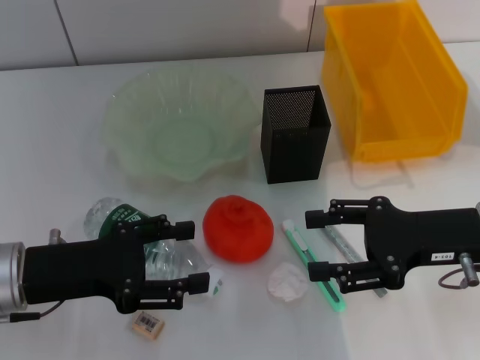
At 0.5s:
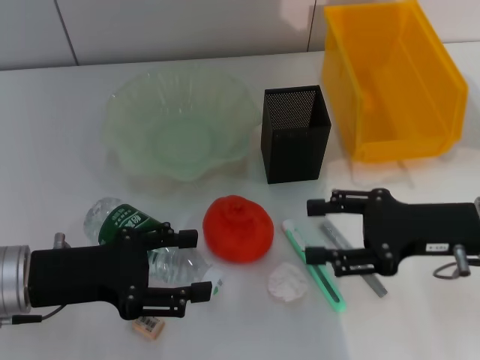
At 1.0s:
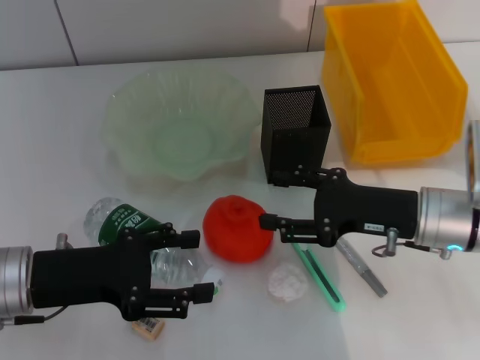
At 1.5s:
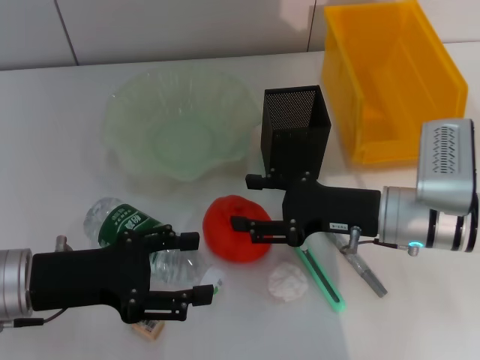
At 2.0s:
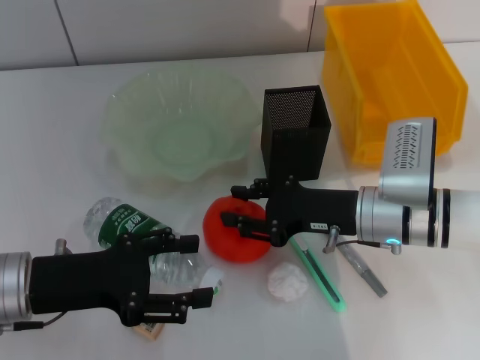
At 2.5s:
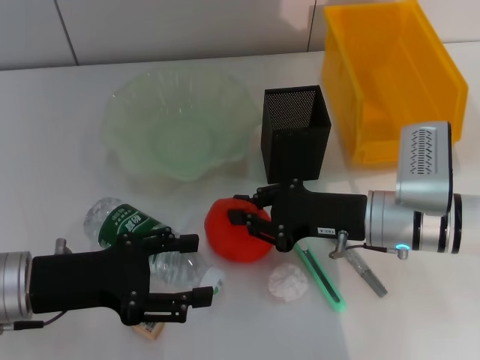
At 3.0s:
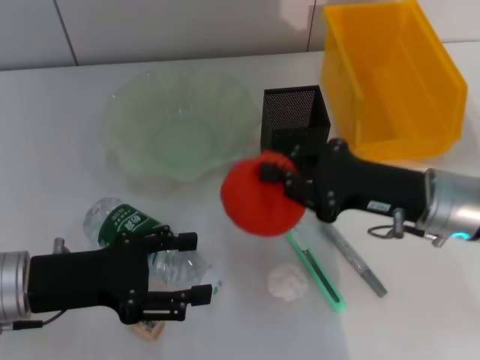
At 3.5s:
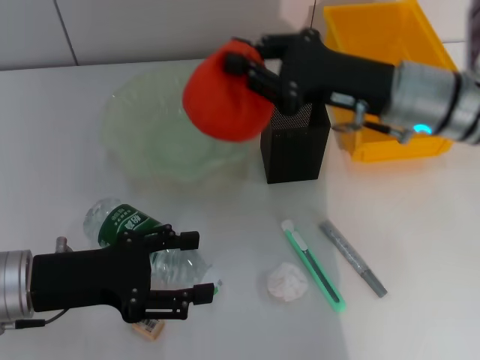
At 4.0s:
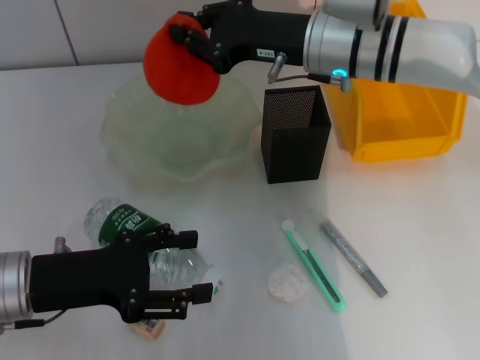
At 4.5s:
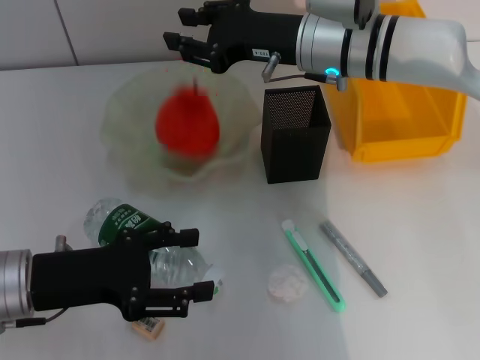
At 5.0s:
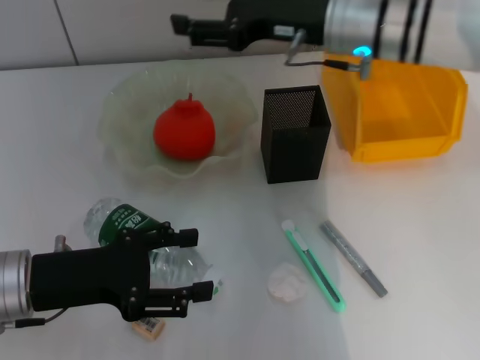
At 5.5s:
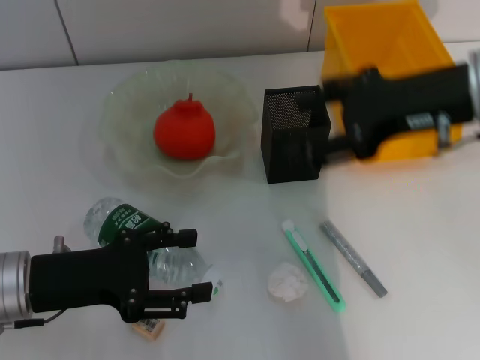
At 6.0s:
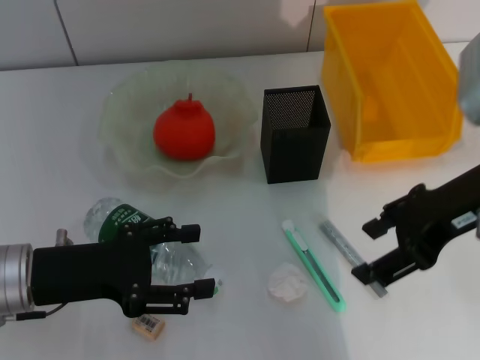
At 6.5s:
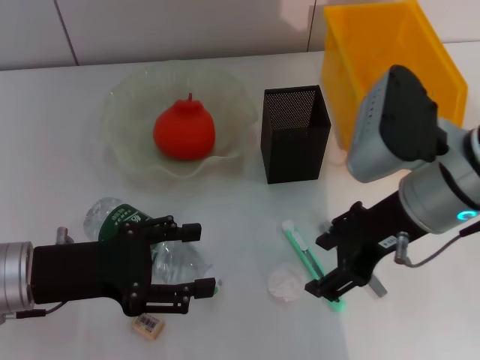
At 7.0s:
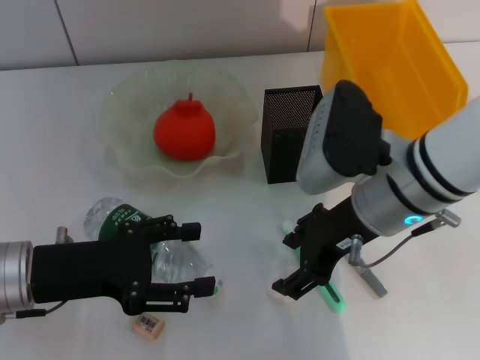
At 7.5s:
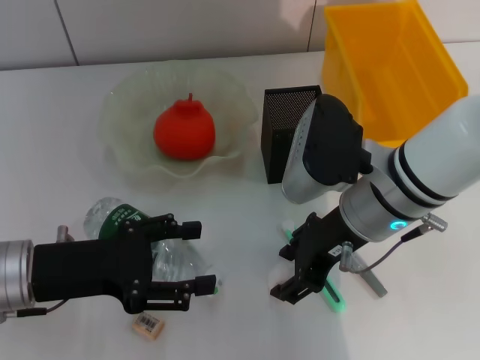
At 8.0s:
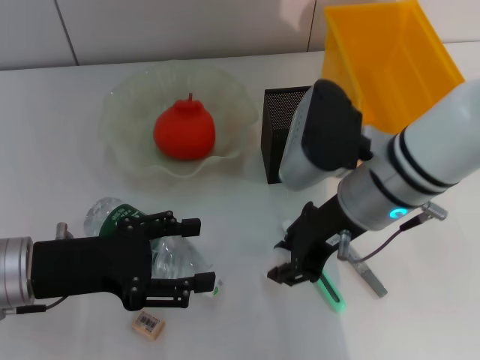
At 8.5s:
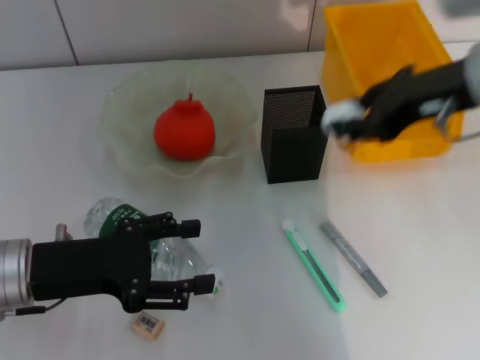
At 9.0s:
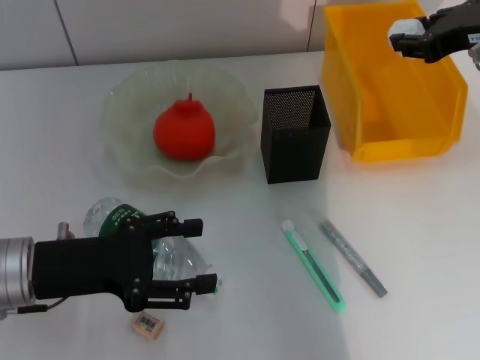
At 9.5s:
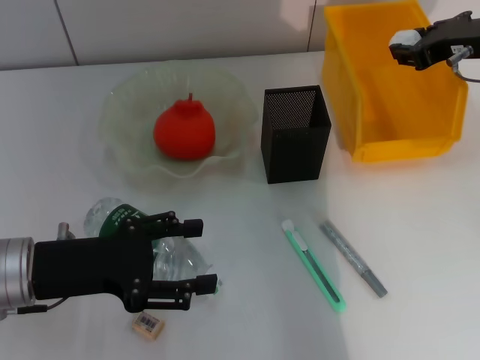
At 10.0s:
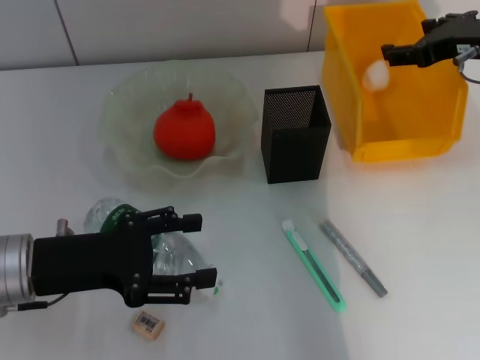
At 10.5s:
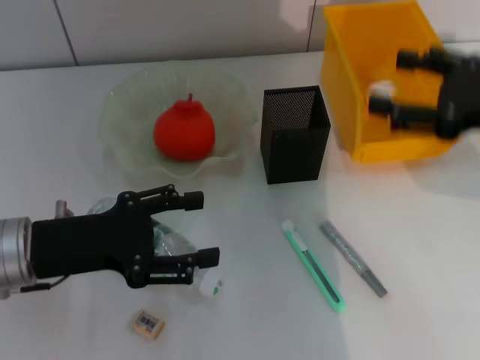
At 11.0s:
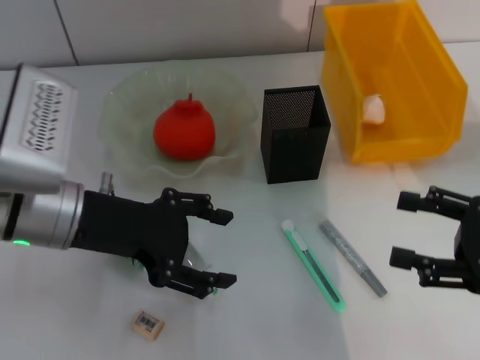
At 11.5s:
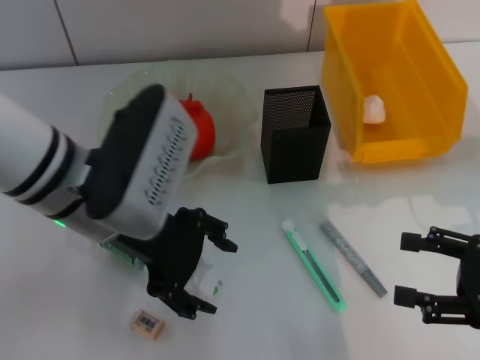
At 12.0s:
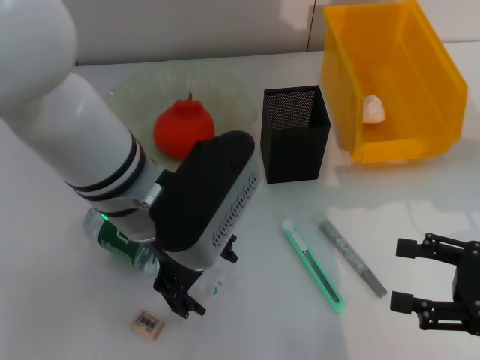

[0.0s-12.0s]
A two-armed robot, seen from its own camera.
Step, 0.0s to 2.0s: Grab the orange with the right hand.
Step, 2.5s to 4.5s: Place the orange into the fruit bowl with the right hand.
Step, 5.0s to 7.5s: Grab the paper ball with the right hand.
Step, 8.0s to 9.5s: Place the paper ball into the trash can with the right hand.
0.0s to 2.0s: The right gripper goes roughly 10 cm to the left and downward.
2.0s to 4.0s: The right gripper travels upward and forward by about 15 cm, and closes.
4.0s to 6.0s: The right gripper travels backward and to the right by some 15 cm, and opens its fingers.
6.0s to 8.0s: The right gripper travels to the left and downward by roughly 10 cm, and closes up.
8.0s to 10.0s: The right gripper is displaced to the right and forward by roughly 20 cm.
10.0s to 12.0s: The right gripper is displaced backward and downward by approximately 25 cm, and opens; the left gripper moves to the right and upward, some 15 cm.

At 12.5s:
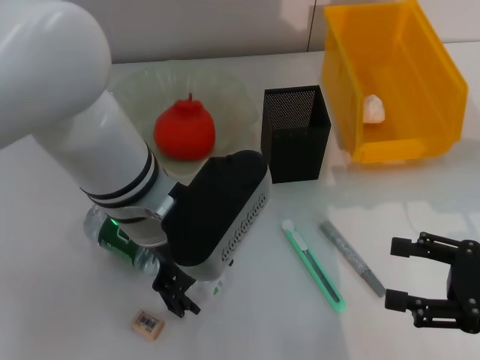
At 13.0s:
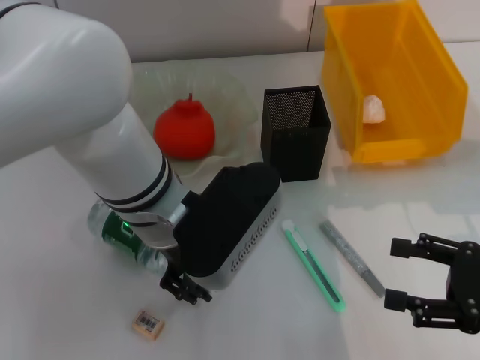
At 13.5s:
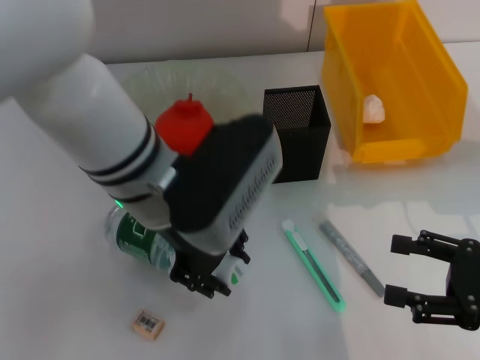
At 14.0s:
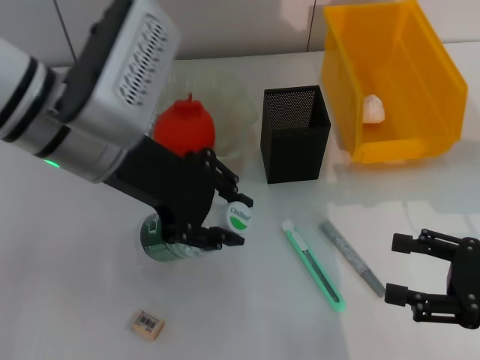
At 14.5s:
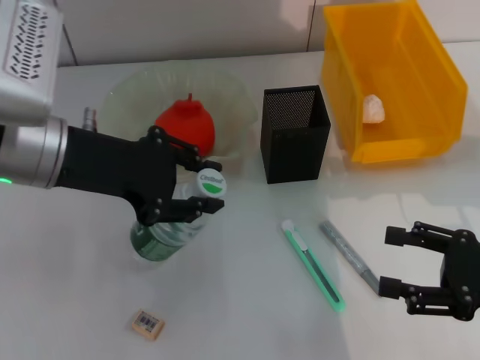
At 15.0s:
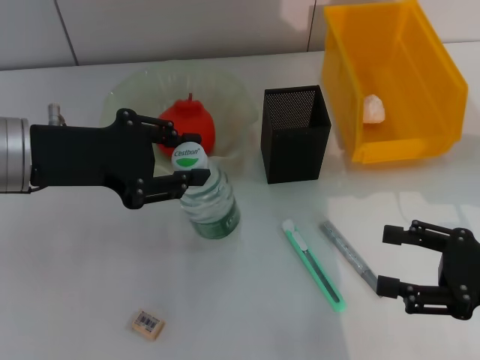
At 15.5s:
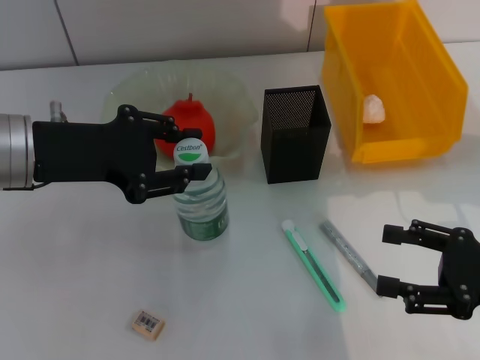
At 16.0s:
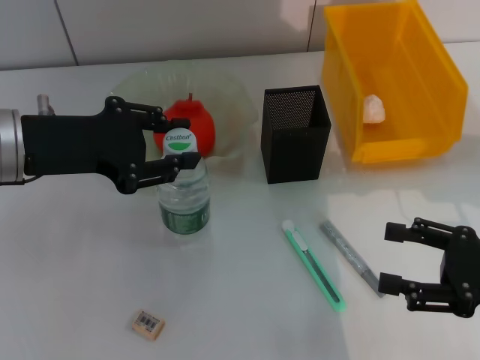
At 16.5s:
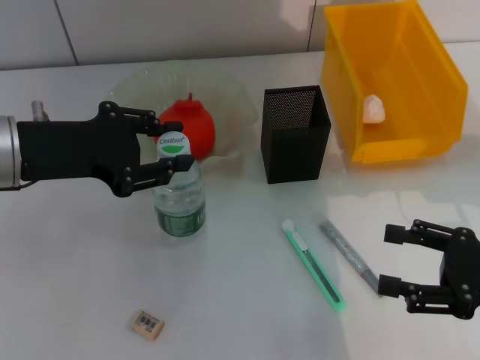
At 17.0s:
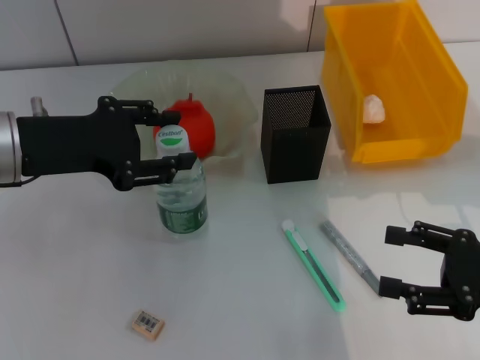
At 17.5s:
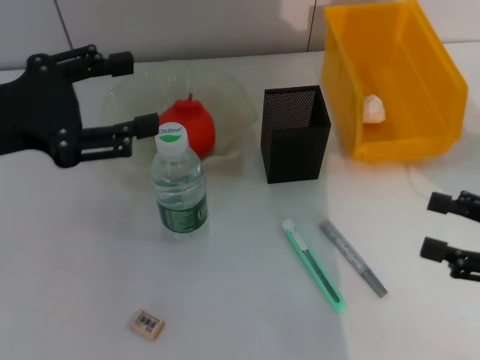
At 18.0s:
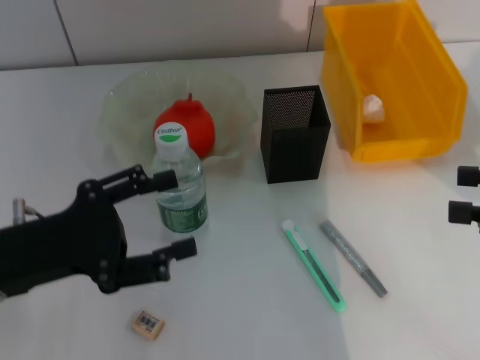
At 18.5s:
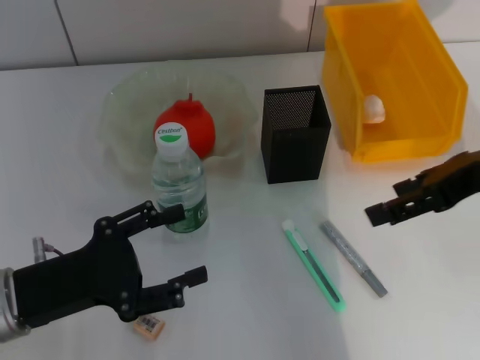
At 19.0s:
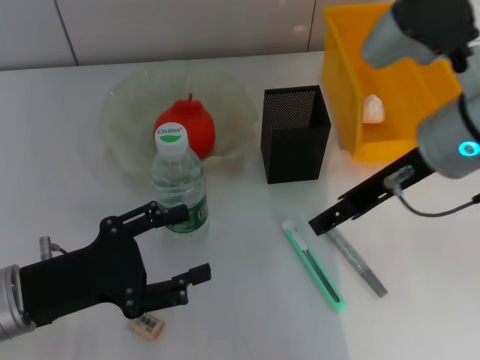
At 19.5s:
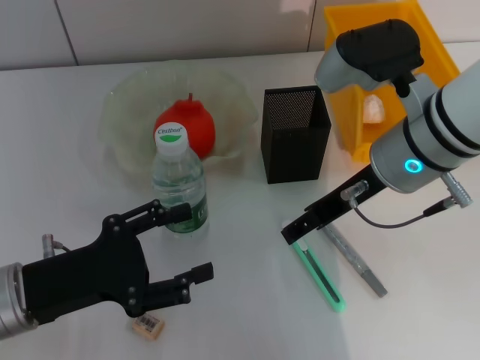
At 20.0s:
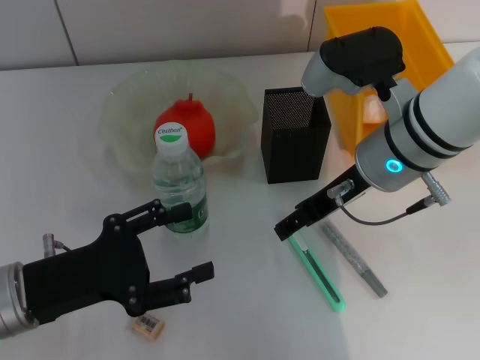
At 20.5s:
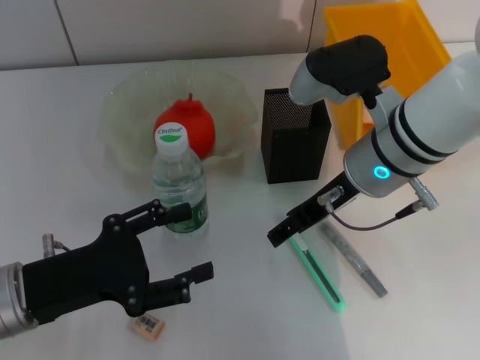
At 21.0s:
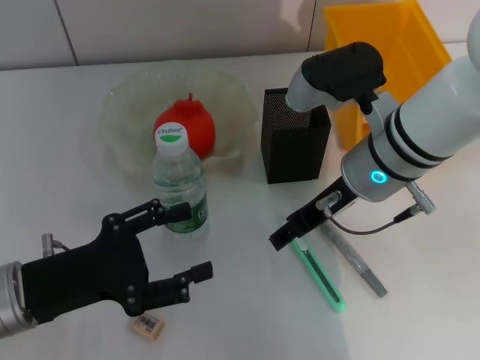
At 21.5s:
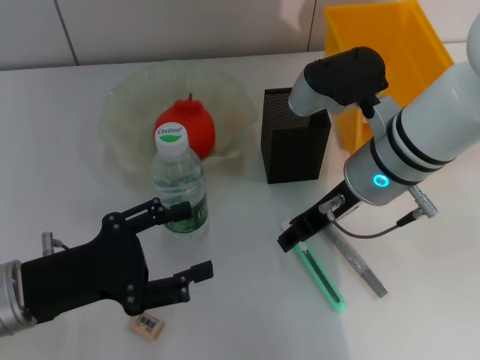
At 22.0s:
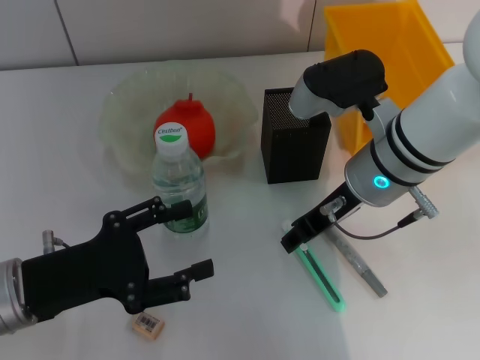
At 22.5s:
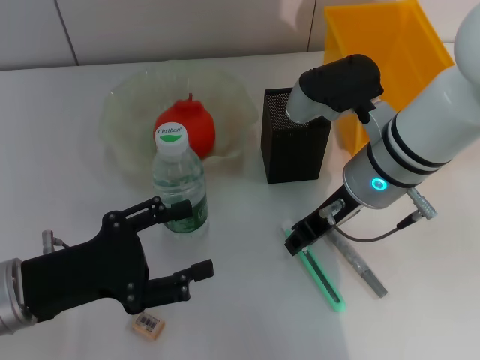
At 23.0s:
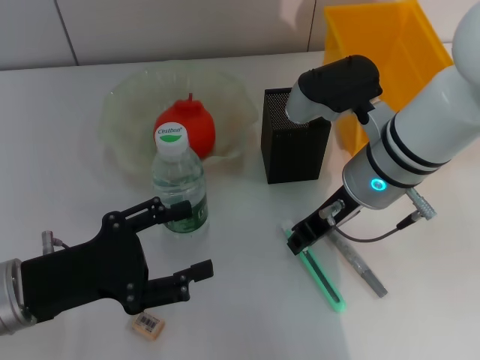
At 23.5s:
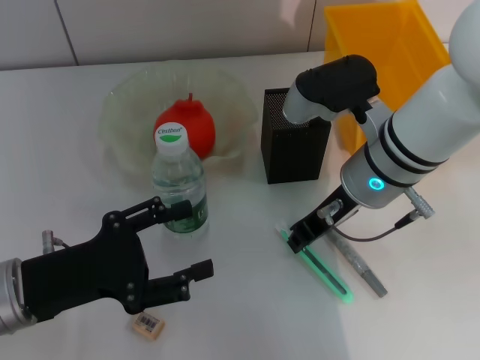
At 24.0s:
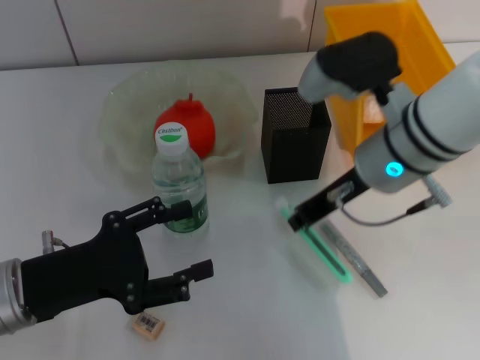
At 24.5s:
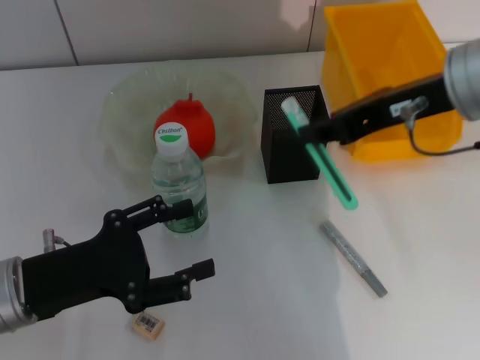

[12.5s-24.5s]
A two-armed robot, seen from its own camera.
Step, 13.5s to 17.0s: Place the water bottle on the table with the left hand.
Step, 17.5s to 23.5s: Grab the blue utility knife with the right hand.
12.5s to 14.5s: The left gripper shifts some 10 cm to the left, and closes.
14.5s to 16.5s: The grippers move only a little.
16.5s to 18.5s: The right gripper travels upward, forward and to the left by roughly 20 cm. The left gripper moves downward and backward, approximately 15 cm, and opens.
18.5s to 20.5s: The right gripper travels to the left and downward by approximately 15 cm.
20.5s to 22.5s: The right gripper closes up.
22.5s to 24.5s: The right gripper goes roughly 15 cm upward and to the right.

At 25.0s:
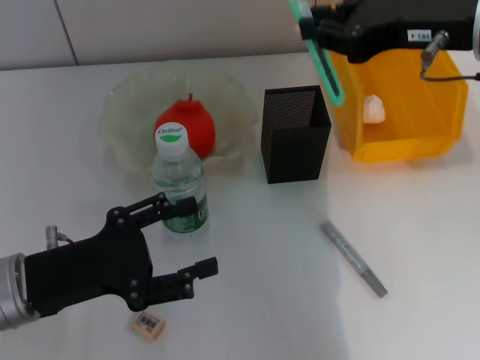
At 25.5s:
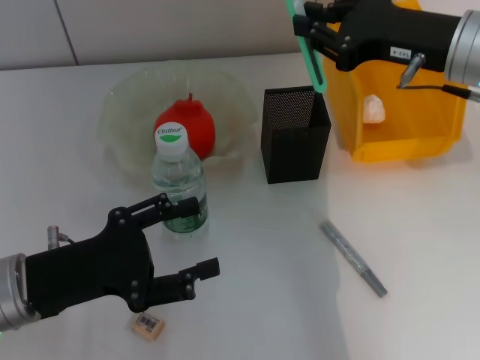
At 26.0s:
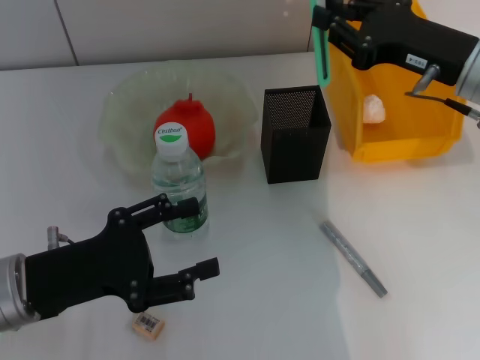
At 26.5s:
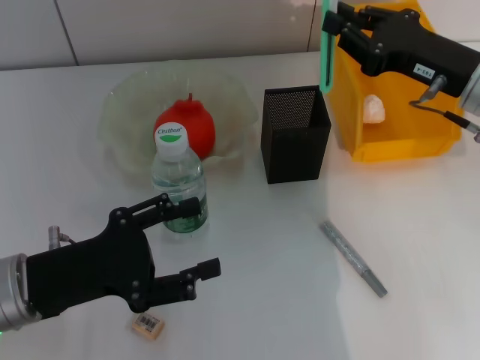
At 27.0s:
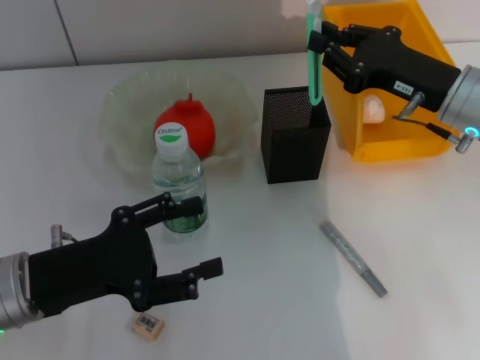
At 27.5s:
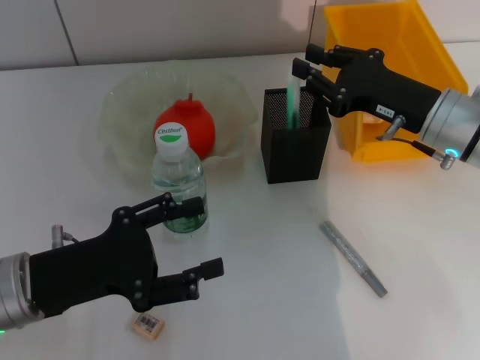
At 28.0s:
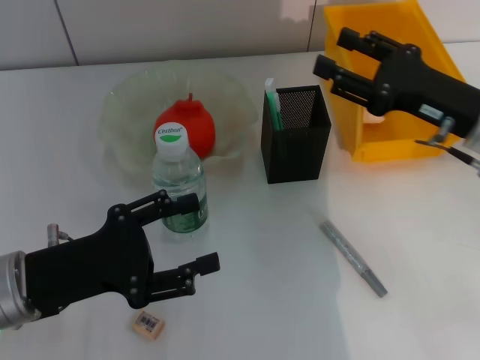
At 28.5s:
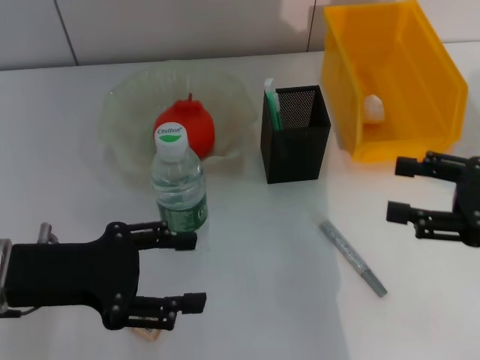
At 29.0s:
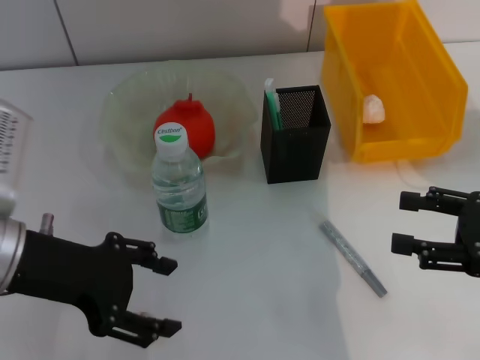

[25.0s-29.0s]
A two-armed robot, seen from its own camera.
Step, 25.0s to 27.5s: Place the blue utility knife into the pen holder with the right hand.
25.0s to 27.0s: The right gripper shifts about 15 cm downward.
27.0s to 29.0s: The left gripper goes roughly 10 cm upward. The right gripper is displaced backward and to the right by some 15 cm, and opens.
